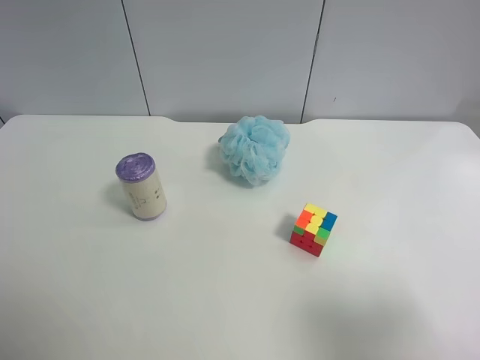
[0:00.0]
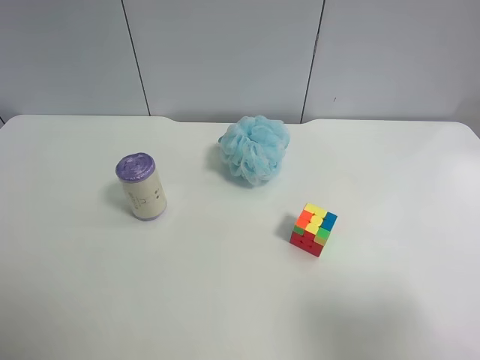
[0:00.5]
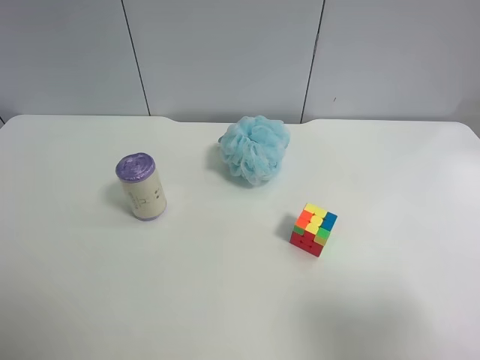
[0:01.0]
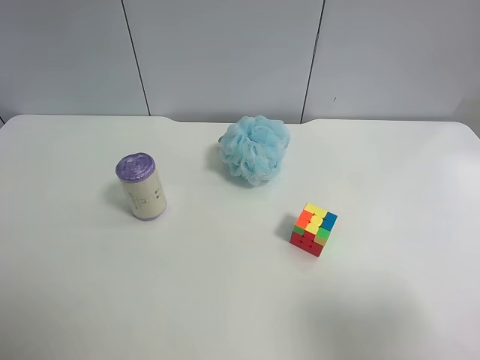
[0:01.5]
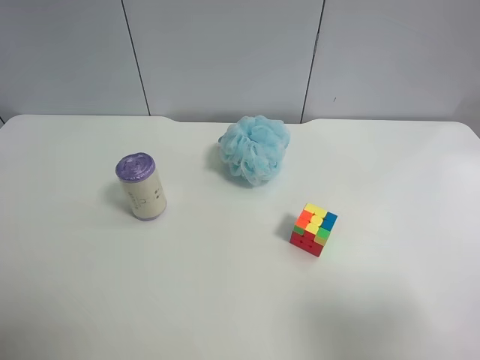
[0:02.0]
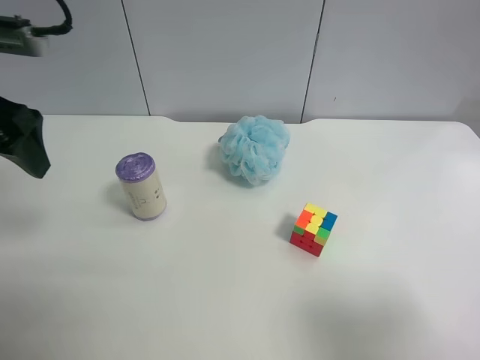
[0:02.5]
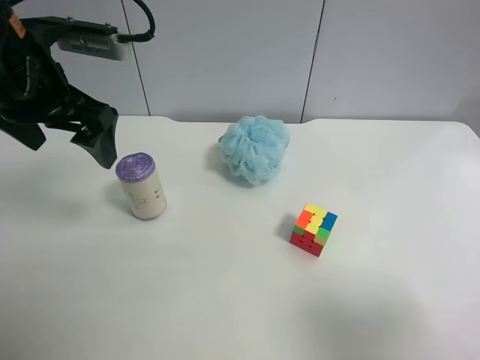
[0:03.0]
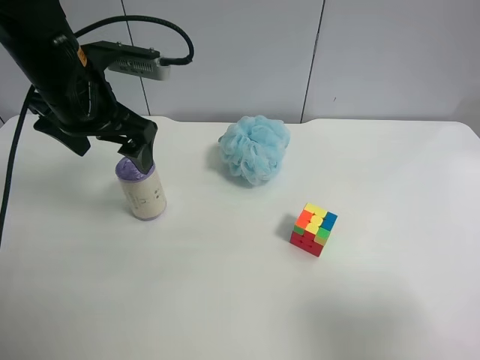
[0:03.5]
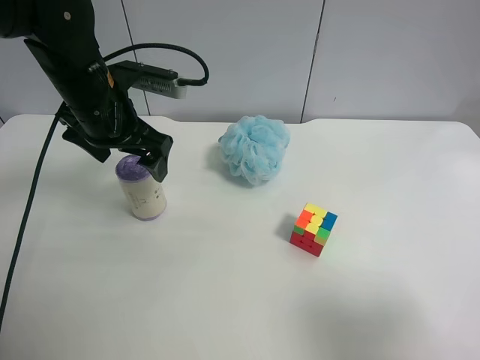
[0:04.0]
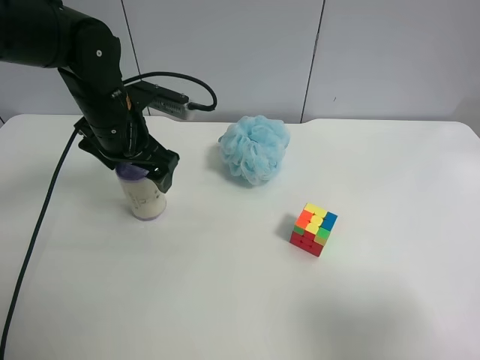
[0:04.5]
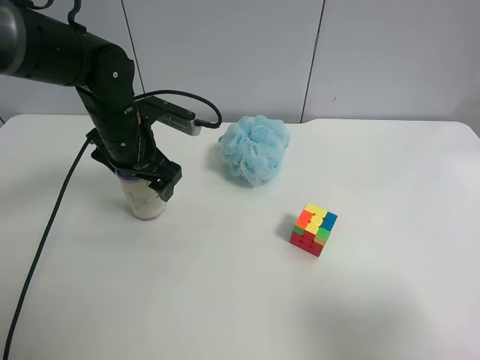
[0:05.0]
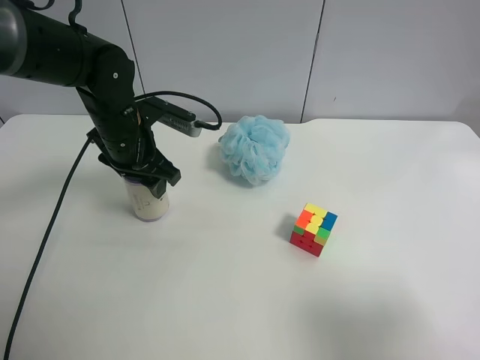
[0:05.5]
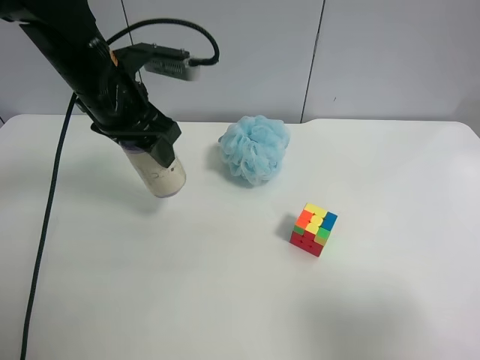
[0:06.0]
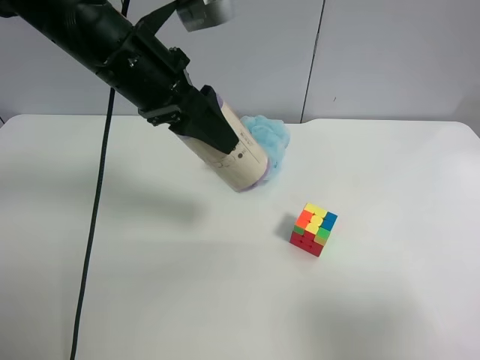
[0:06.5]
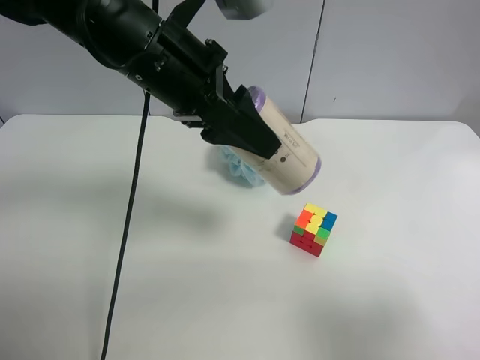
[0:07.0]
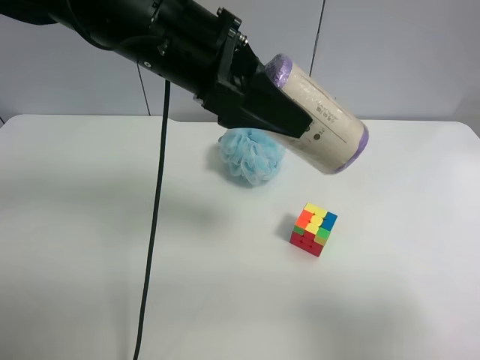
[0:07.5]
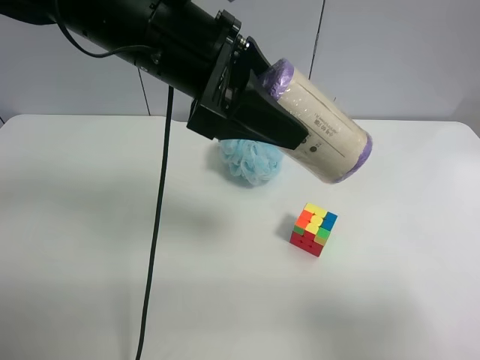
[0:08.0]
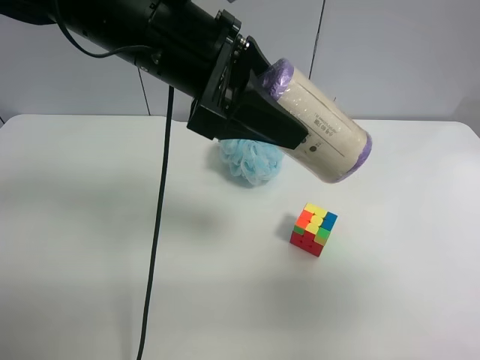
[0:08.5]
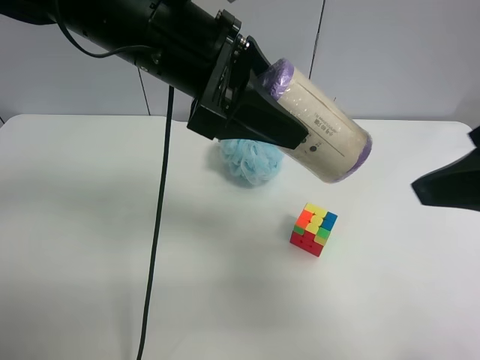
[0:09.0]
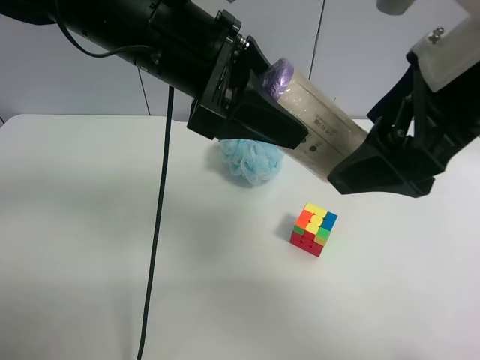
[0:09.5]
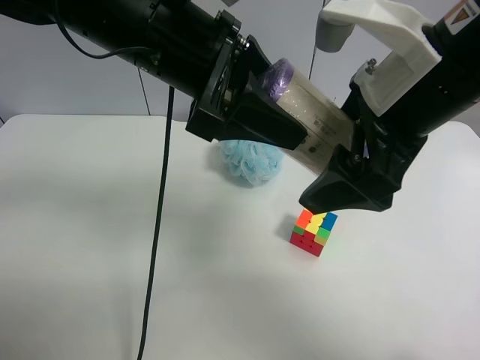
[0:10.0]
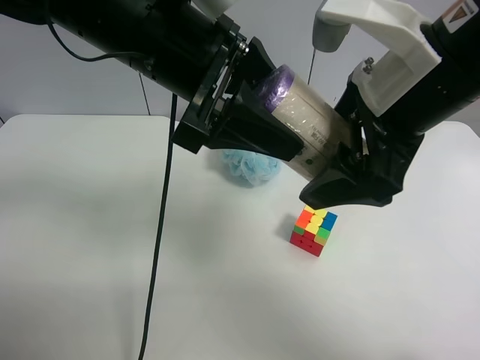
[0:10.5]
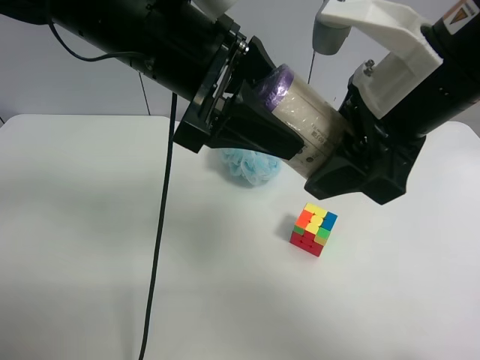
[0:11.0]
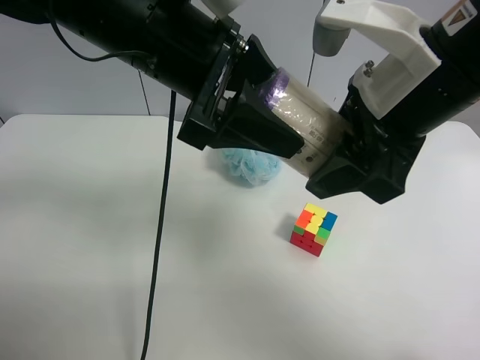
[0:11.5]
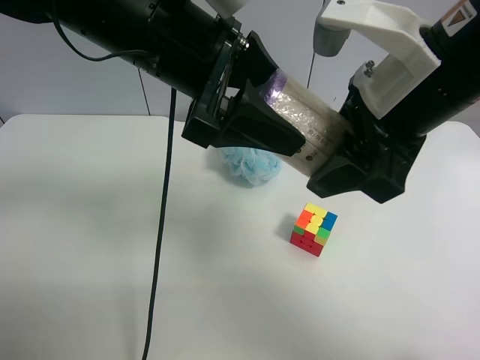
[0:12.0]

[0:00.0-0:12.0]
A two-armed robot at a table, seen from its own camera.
Task of the whole recording: use the left gripper to pick up the item and transfer it from the left gripper to the right gripper.
0:02.0 to 0:04.0: The left gripper goes about 25 cm forward, to the right and downward.
0:04.0 to 0:06.0: The left gripper moves about 5 cm downward and comes back, and closes up.
0:06.0 to 0:08.0: The left gripper heads to the right, upward and backward, covering approximately 10 cm.
0:08.0 to 0:10.0: The right gripper shifts roughly 25 cm forward and to the left.
0:10.0 to 0:12.0: The right gripper closes.

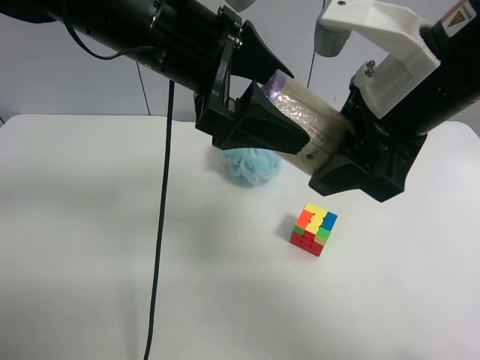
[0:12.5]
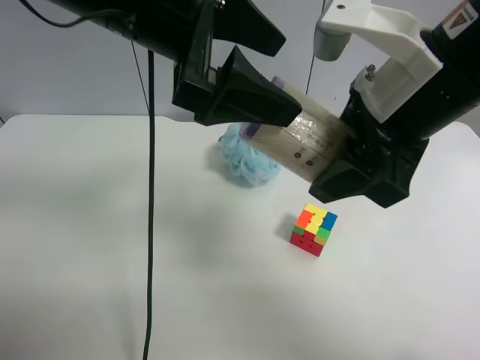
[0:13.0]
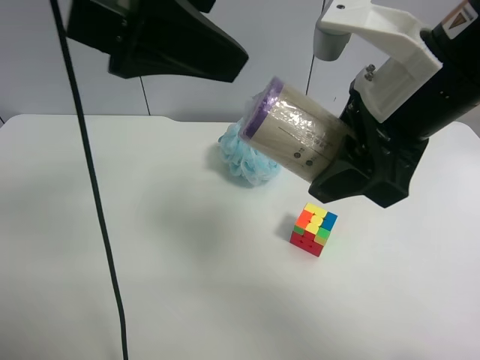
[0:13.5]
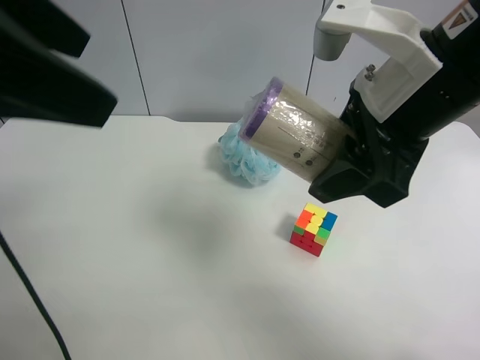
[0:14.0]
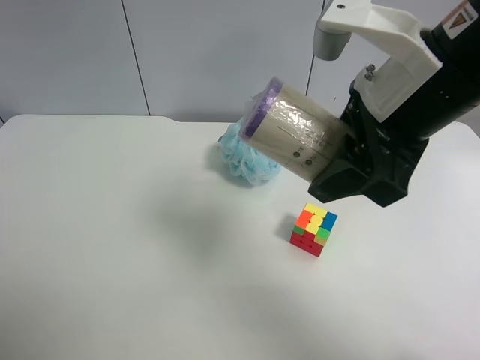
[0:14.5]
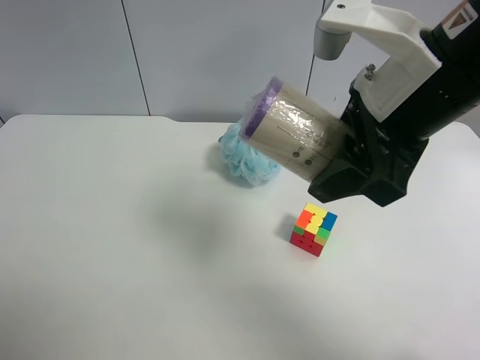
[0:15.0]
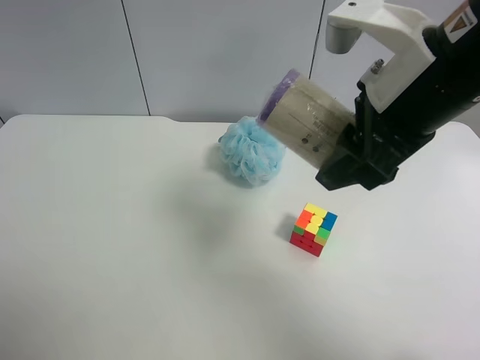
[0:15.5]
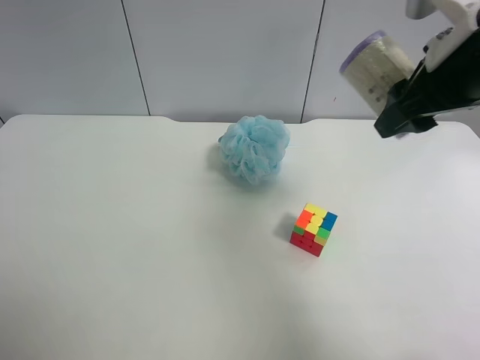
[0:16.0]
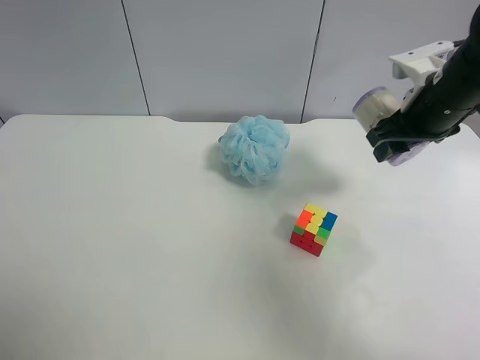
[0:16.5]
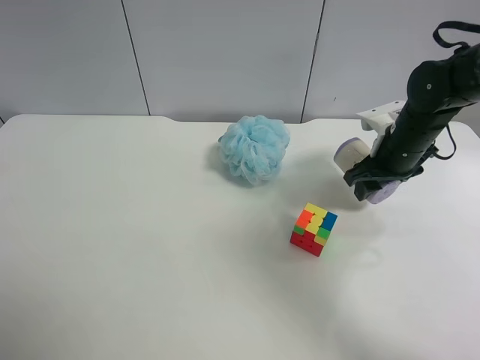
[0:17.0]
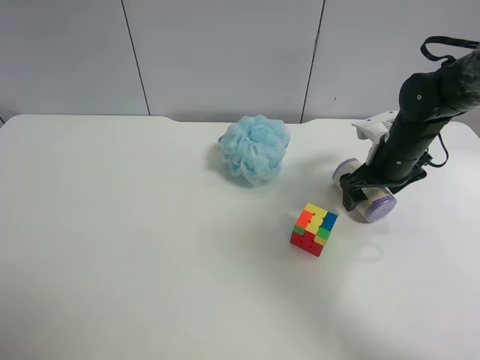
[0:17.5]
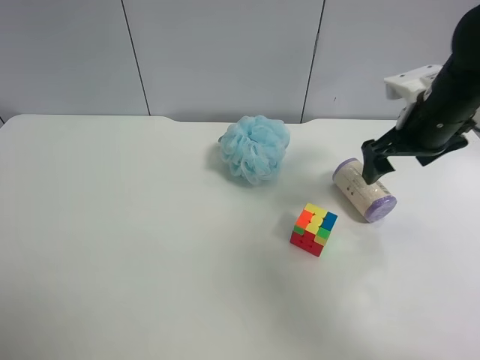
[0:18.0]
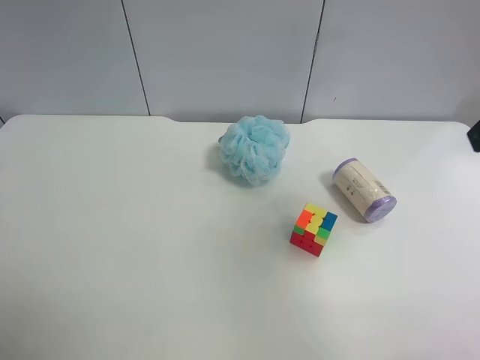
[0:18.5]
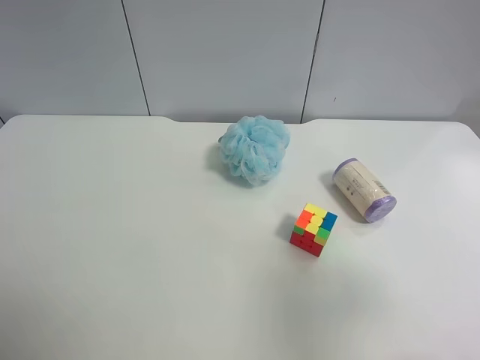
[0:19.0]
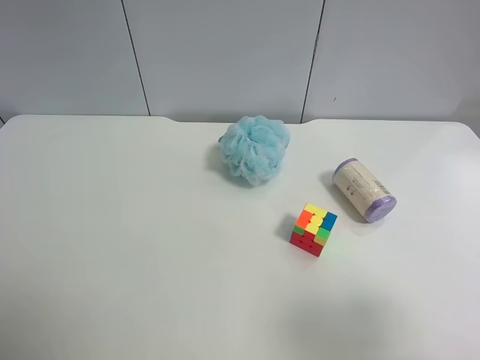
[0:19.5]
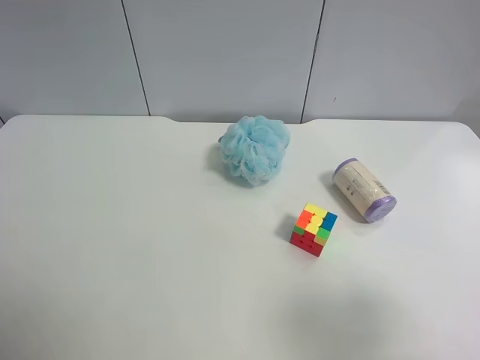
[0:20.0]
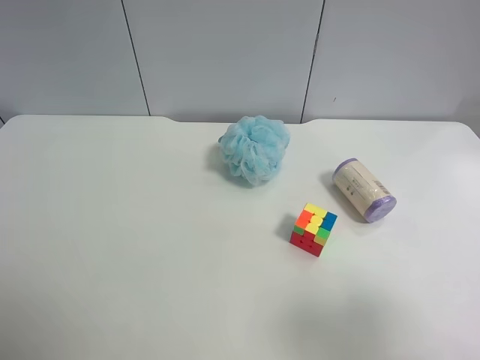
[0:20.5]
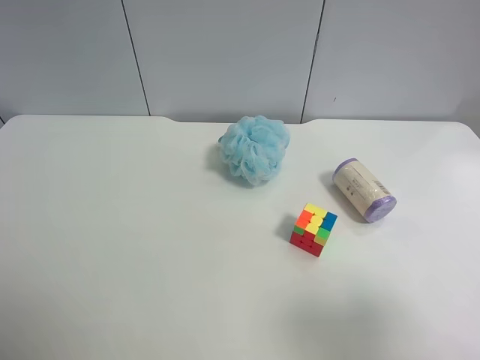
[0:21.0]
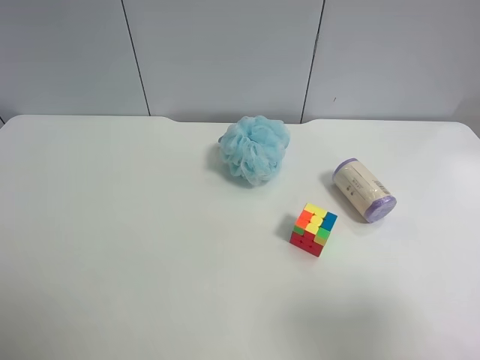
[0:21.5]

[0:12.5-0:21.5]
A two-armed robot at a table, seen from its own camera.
Task of the whole recording: use the left gripper to pick up the item and transfer it from the left gripper to the right gripper.
0:12.5 to 0:14.5: The left gripper shifts some 30 cm backward and to the left.
0:14.5 to 0:17.0: The left gripper moves backward, about 5 cm. The right gripper goes approximately 25 cm downward, forward and to the right.
0:17.0 to 0:19.5: The right gripper travels backward and upward by about 35 cm, and opens its fingers.
